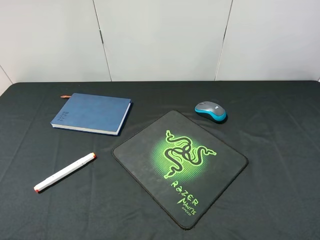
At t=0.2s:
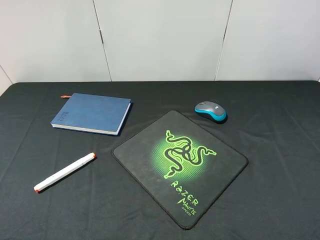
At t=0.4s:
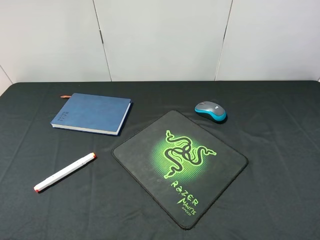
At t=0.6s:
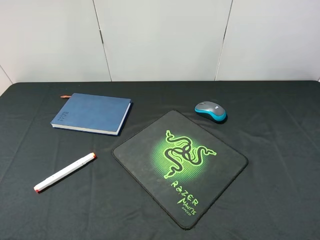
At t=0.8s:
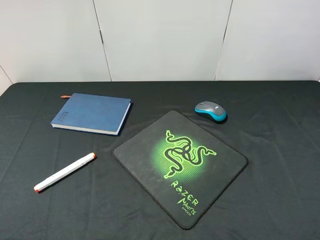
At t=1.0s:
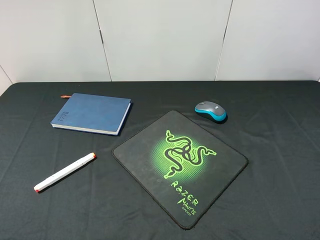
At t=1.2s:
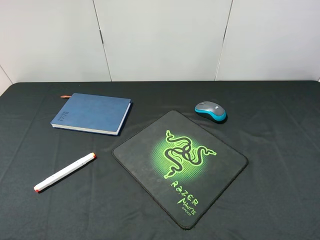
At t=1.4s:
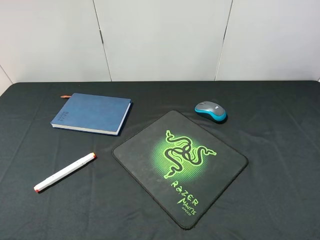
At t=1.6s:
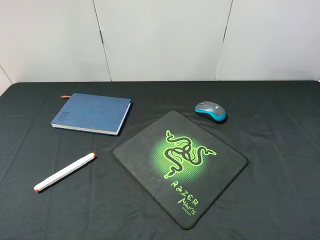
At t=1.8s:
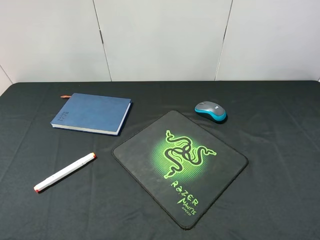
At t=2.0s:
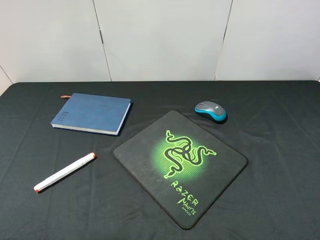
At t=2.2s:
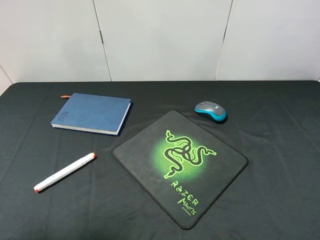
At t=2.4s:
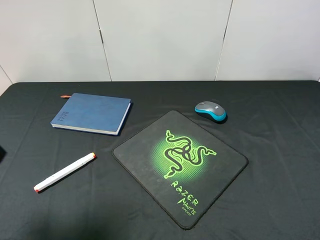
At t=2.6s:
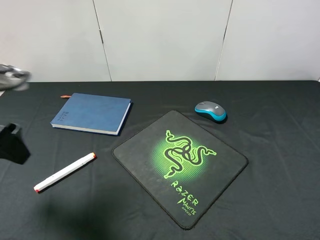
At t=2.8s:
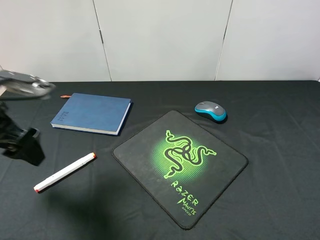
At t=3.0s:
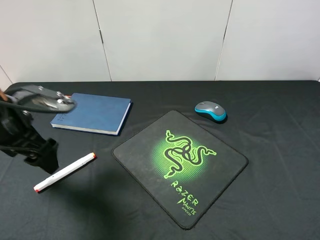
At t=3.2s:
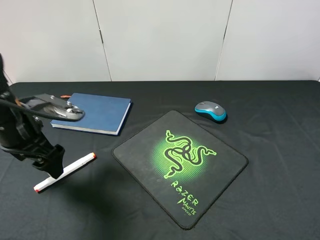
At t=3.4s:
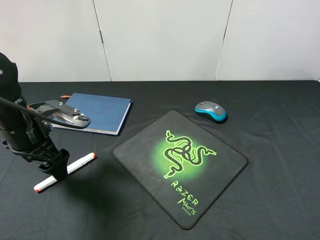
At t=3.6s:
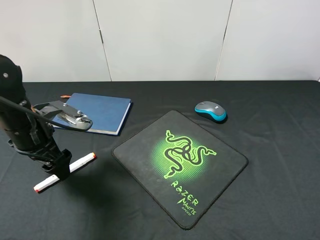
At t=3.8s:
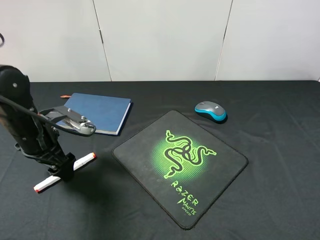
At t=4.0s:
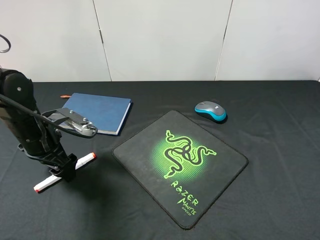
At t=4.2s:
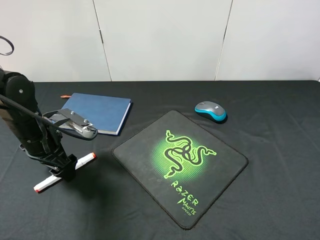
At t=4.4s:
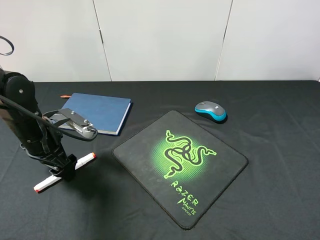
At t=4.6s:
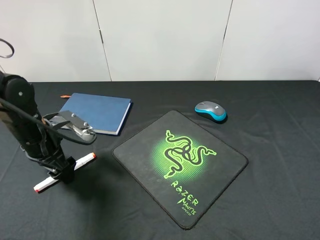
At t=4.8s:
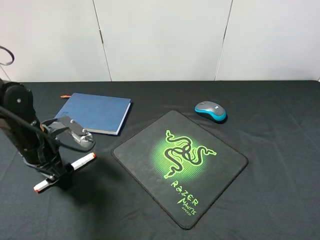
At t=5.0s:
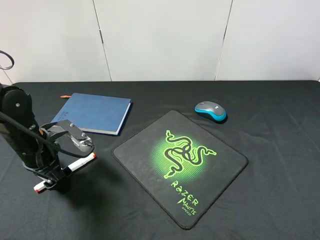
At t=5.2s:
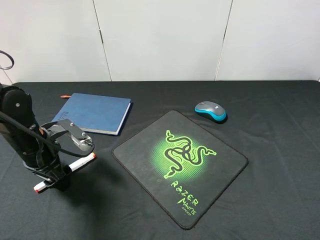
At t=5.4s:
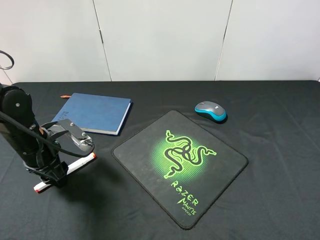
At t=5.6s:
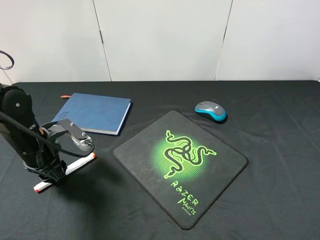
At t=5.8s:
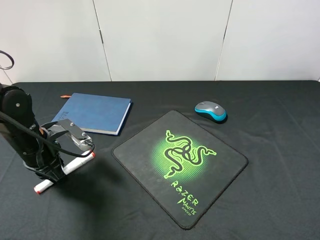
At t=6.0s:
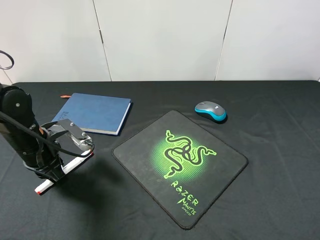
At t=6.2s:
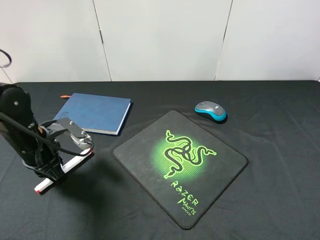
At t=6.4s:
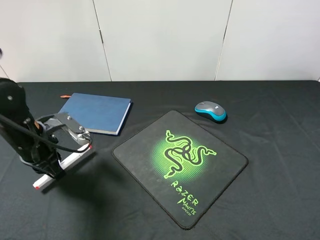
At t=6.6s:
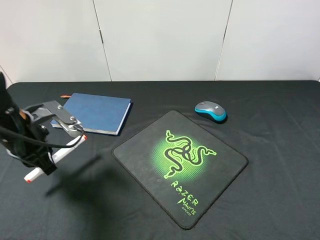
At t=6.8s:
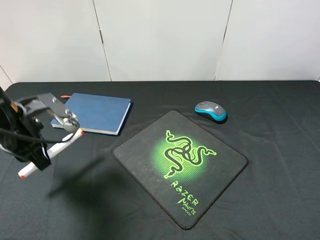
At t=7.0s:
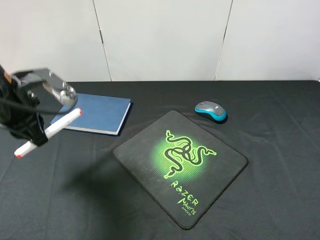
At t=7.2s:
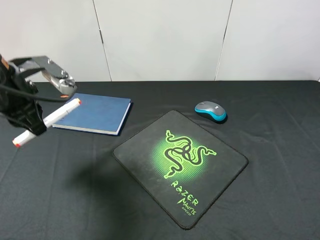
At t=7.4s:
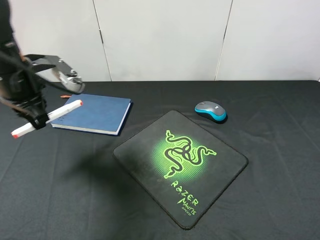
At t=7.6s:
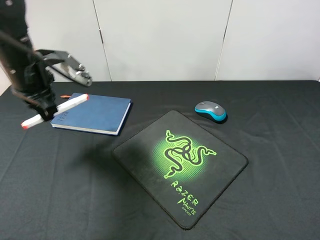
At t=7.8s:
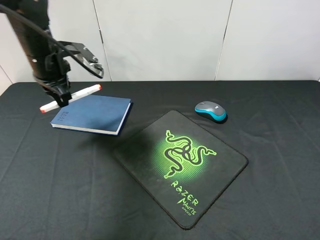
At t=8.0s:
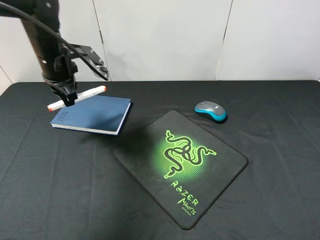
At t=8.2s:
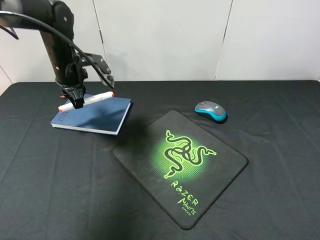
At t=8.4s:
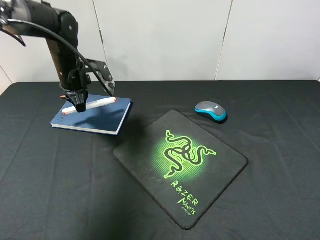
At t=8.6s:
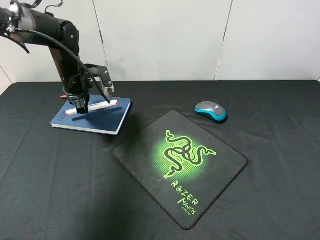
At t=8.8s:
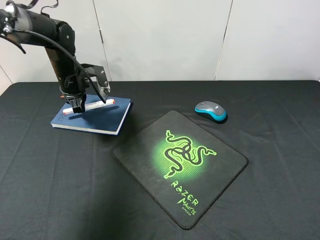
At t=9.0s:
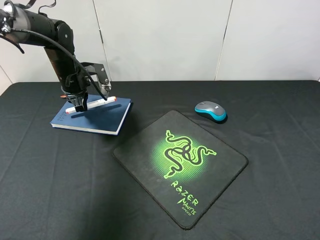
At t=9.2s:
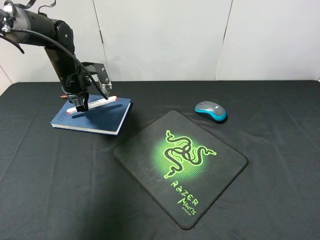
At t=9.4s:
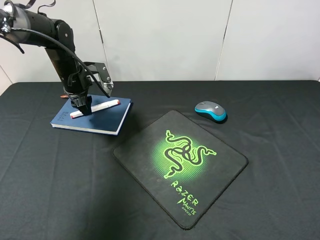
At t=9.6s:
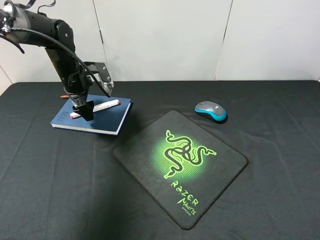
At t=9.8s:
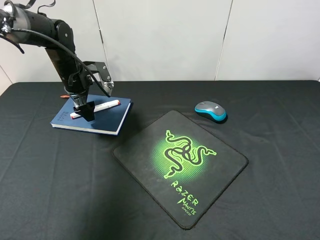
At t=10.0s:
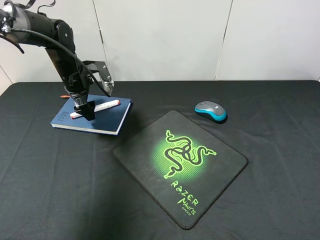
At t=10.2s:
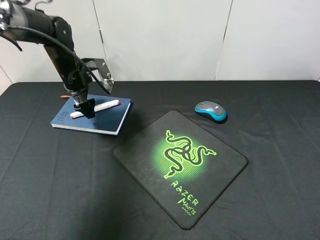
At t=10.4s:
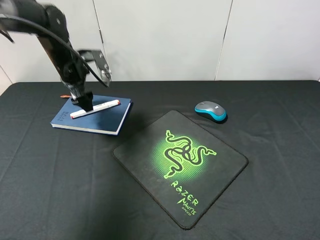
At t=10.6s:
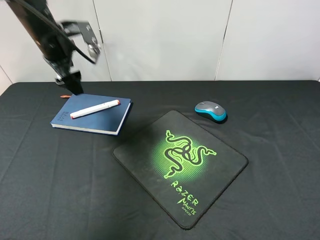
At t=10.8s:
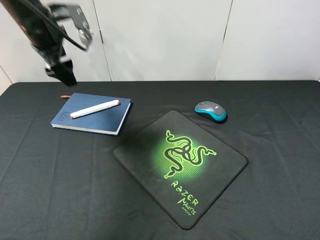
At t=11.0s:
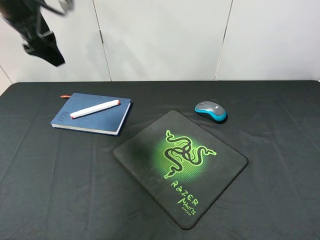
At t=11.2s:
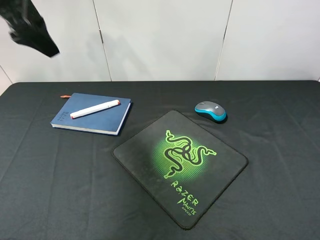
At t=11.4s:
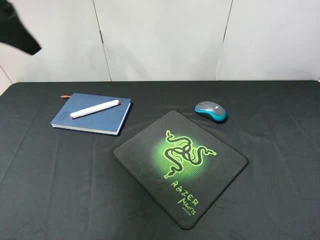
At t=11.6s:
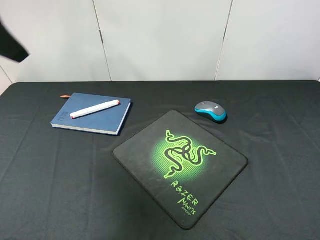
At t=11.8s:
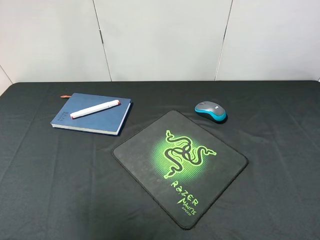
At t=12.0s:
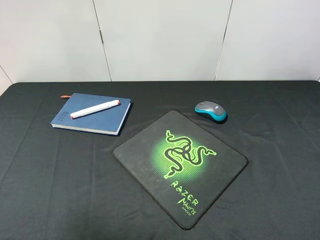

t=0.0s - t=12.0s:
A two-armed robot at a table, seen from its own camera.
Step, t=0.0s - t=6.8s: Pick up the marker pen with left gripper.
Step, t=7.0s - t=10.4s: Place the marker pen on the notebook with left gripper.
t=1.6s - t=3.0s: The left gripper is displaced forward and downward by about 25 cm.
t=3.0s - t=4.4s: The left gripper heads downward, covering some 5 cm.
t=4.4s - t=6.0s: The left gripper closes.
t=6.0s - t=7.6s: The left gripper is displaced upward and forward by about 15 cm.
t=7.6s - t=9.0s: The left gripper moves forward and downward, roughly 15 cm.
t=9.0s - t=10.4s: The left gripper shifts by roughly 5 cm, and opens its fingers.
t=10.4s - t=12.0s: The left gripper travels backward and upward by roughly 40 cm.

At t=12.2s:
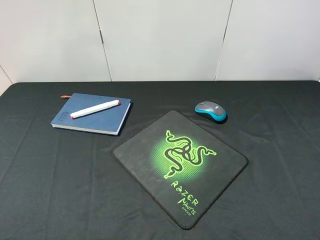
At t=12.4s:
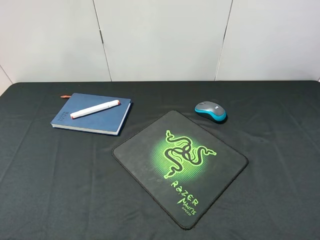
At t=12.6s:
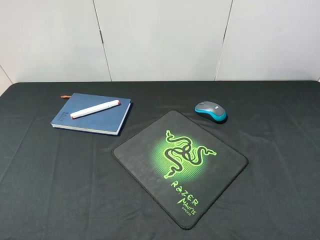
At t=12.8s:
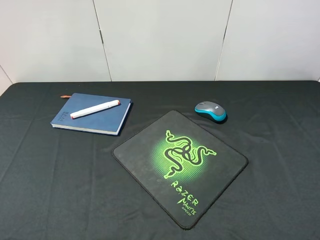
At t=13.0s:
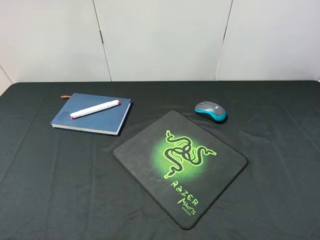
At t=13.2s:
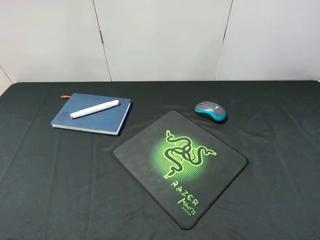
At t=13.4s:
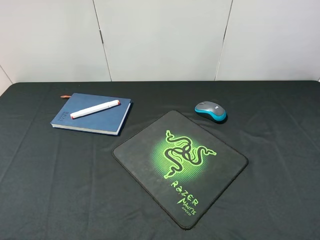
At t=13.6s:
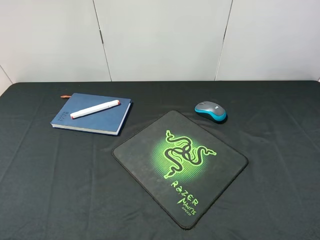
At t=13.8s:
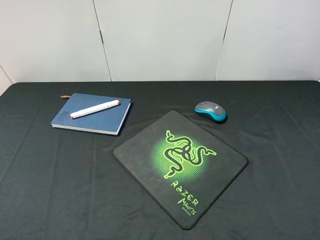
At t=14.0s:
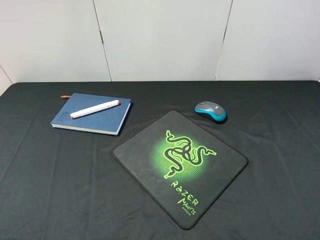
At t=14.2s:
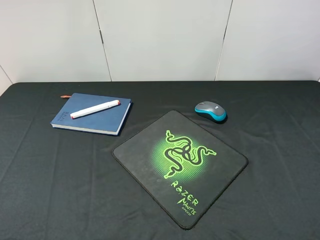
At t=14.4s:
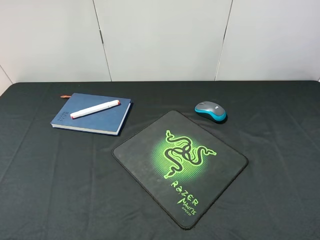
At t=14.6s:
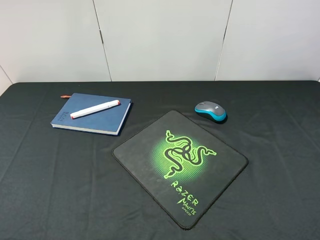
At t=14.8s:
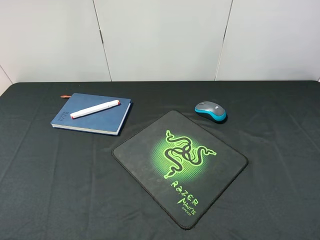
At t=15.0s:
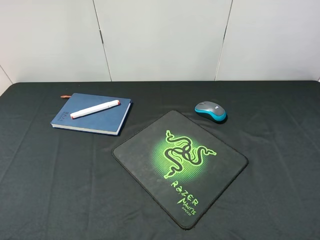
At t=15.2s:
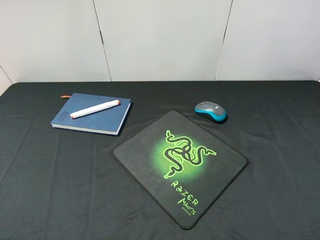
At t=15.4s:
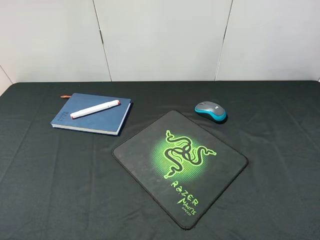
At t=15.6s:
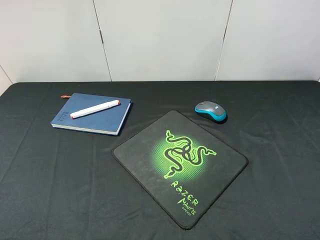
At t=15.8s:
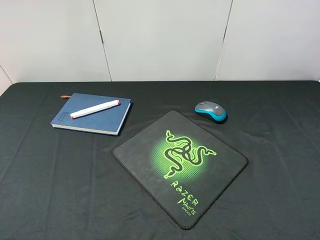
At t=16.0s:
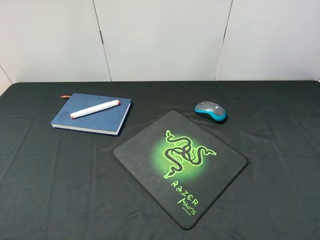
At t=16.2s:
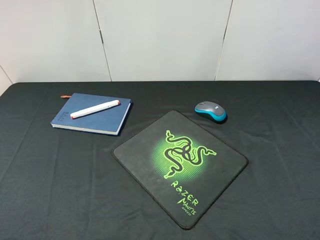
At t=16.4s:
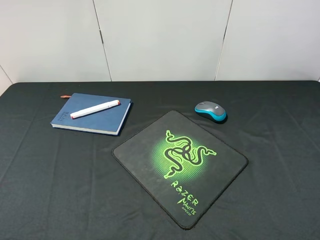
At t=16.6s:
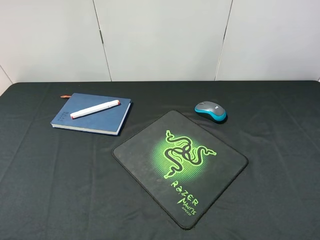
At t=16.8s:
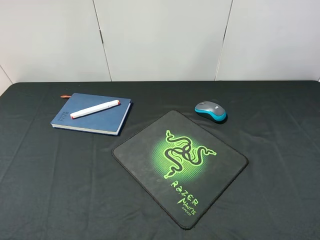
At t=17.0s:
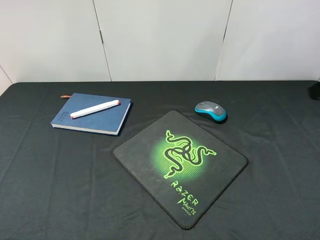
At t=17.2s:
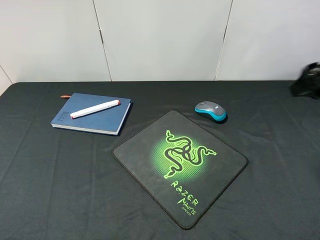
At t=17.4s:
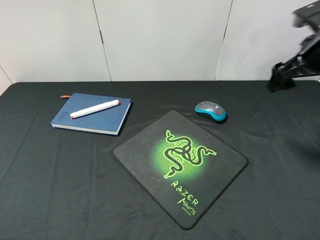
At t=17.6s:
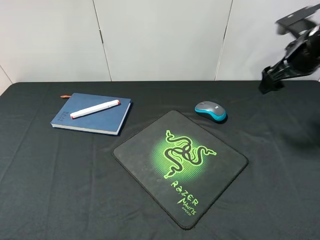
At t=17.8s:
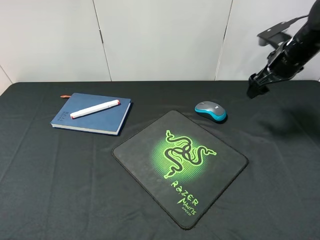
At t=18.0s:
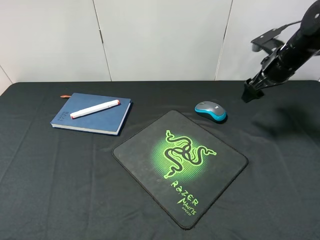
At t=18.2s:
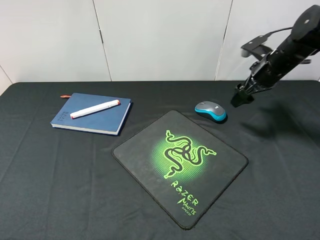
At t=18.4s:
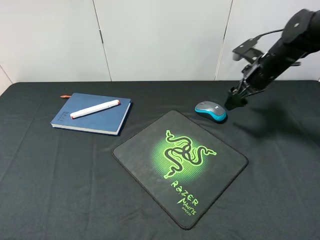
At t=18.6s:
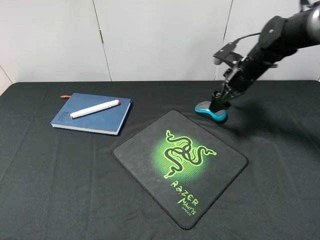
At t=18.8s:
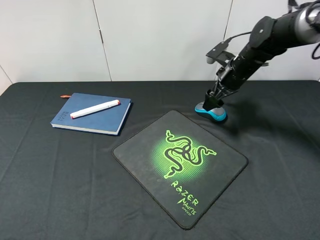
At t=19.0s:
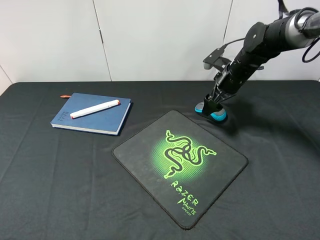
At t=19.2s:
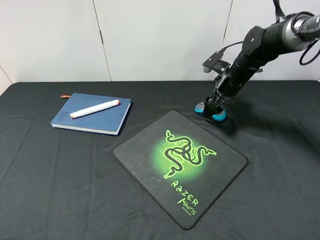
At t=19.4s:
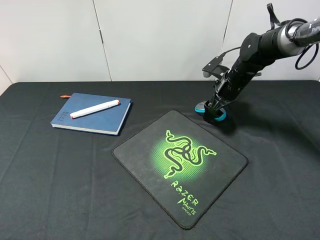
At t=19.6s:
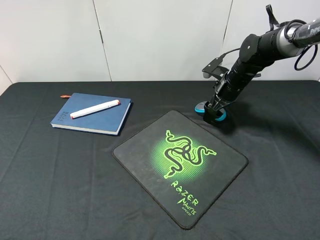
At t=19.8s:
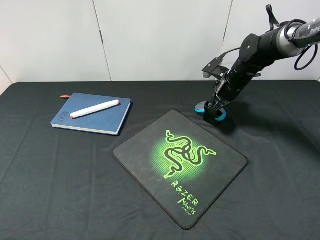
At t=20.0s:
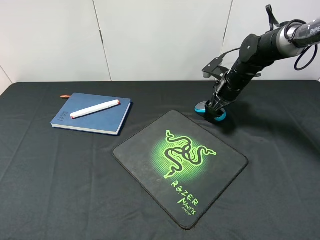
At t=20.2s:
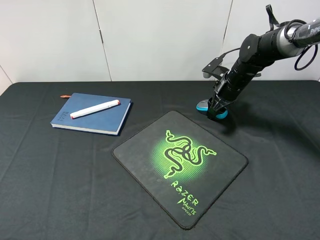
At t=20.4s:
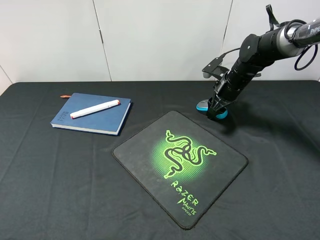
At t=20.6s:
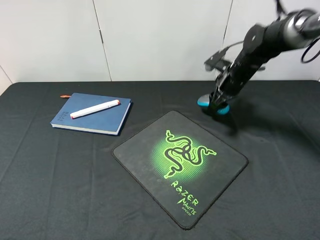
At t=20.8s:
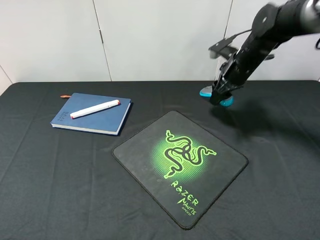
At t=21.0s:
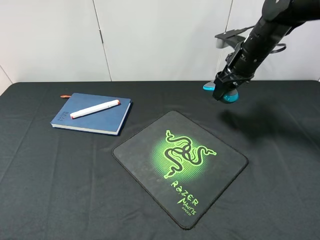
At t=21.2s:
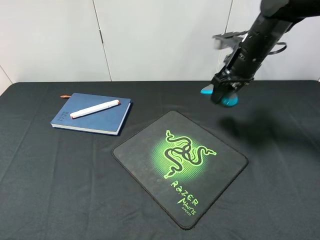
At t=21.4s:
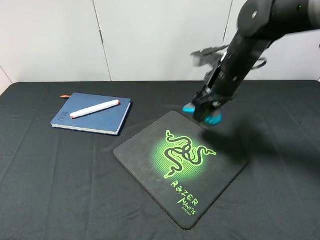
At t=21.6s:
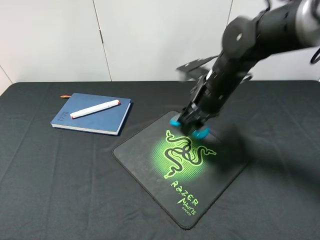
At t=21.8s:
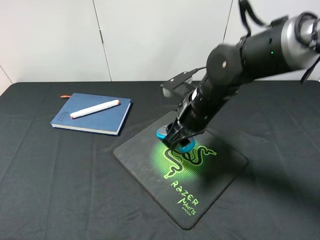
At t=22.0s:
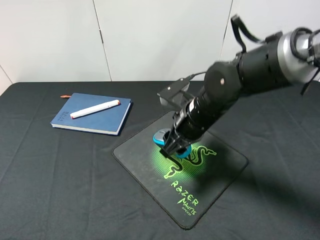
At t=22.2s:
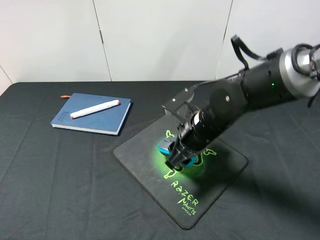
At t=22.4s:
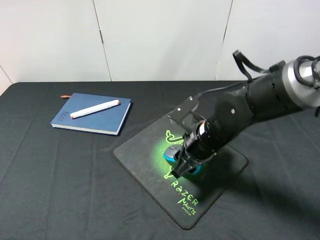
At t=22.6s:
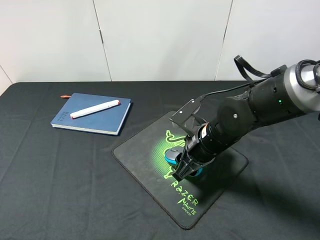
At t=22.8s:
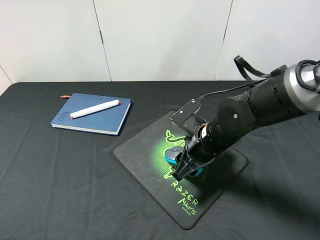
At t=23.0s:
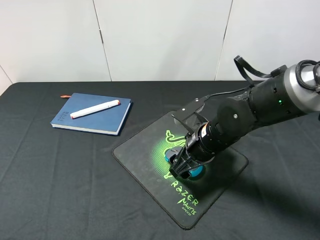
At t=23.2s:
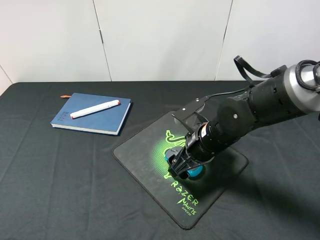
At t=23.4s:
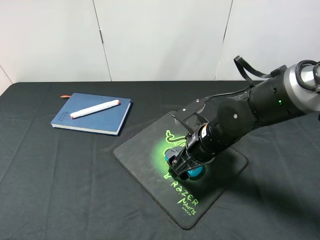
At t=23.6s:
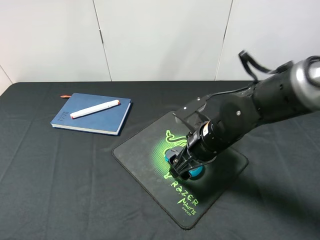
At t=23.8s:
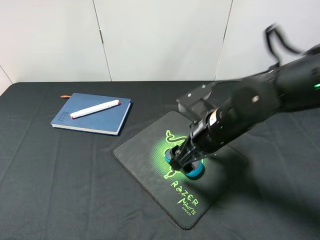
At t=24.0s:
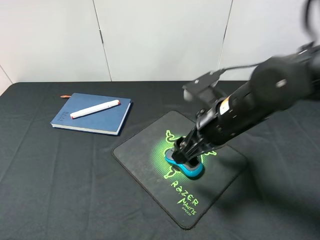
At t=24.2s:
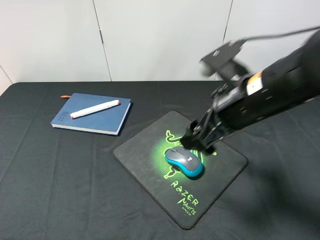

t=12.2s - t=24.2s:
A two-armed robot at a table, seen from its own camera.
Step, t=12.2s - t=20.8s: Pick up the mouse with right gripper.
Step, t=21.0s - t=23.8s: Place the mouse on the mouse pad with right gripper.
t=16.6s - t=18.2s: The right gripper shifts some 35 cm forward.
t=18.2s - t=19.8s: The right gripper travels to the left and downward by some 10 cm.
t=19.8s - t=21.2s: The right gripper heads upward and backward, covering approximately 10 cm, and closes its fingers.
t=21.2s - t=22.6s: The right gripper travels backward, downward and to the left by some 20 cm.
t=22.6s - t=24.2s: The right gripper goes some 15 cm upward, and opens its fingers.
